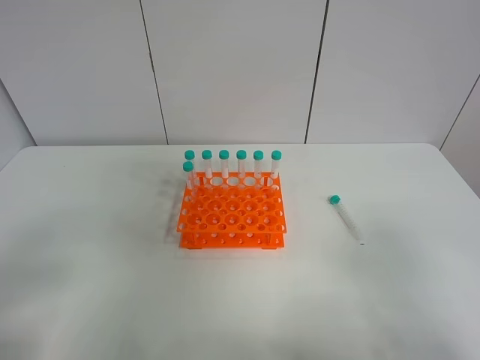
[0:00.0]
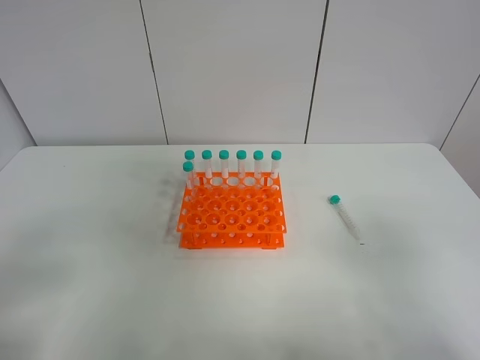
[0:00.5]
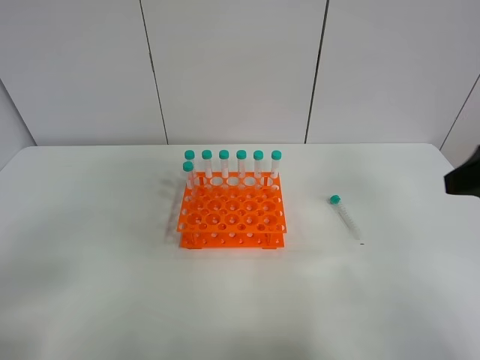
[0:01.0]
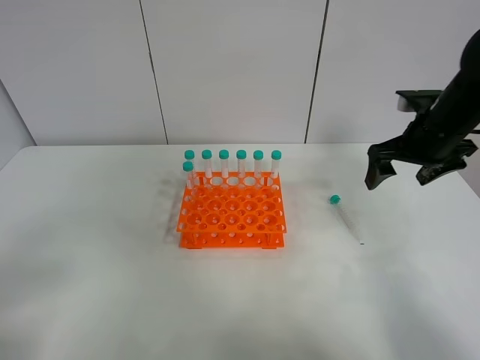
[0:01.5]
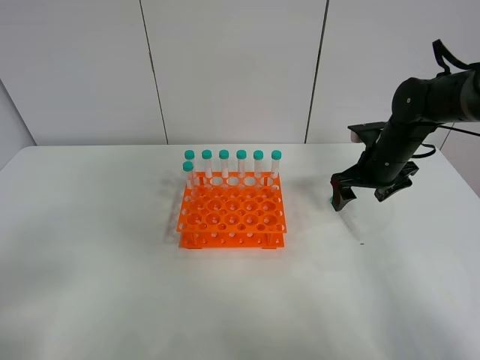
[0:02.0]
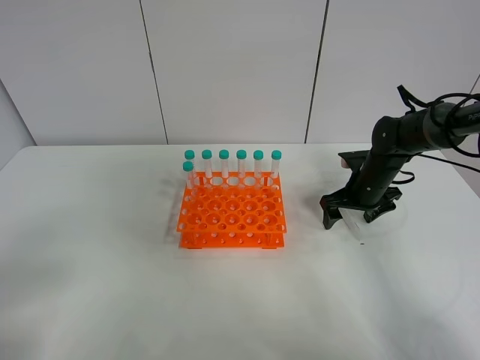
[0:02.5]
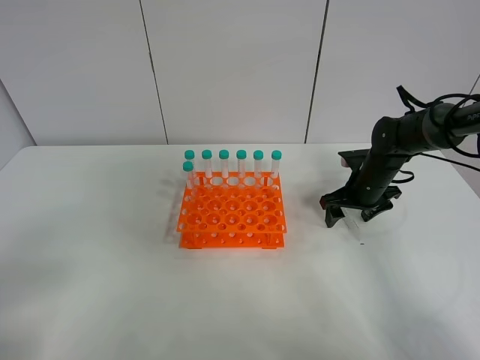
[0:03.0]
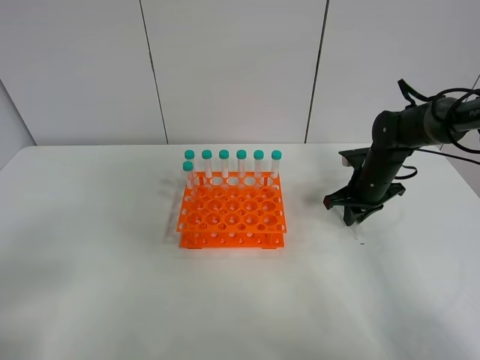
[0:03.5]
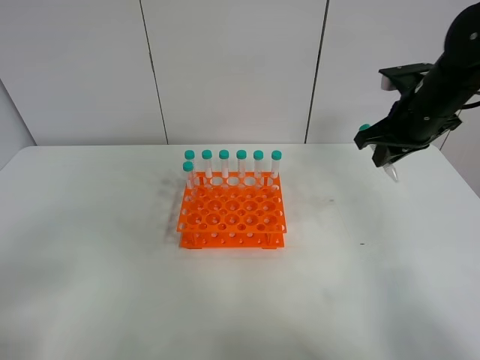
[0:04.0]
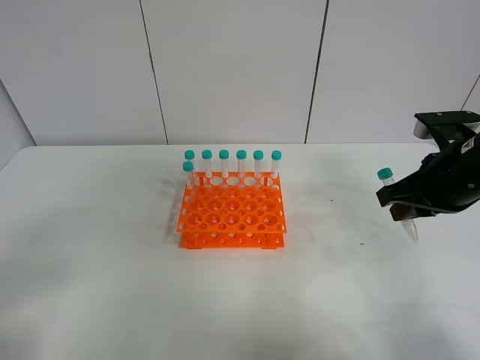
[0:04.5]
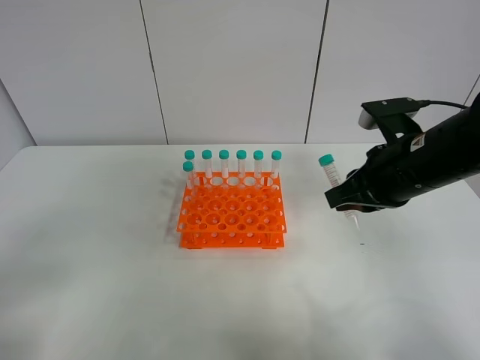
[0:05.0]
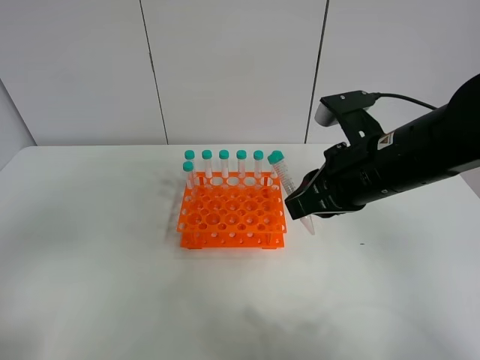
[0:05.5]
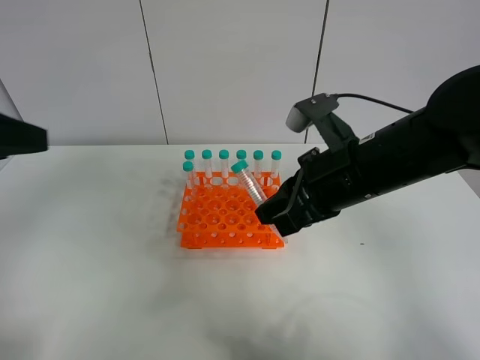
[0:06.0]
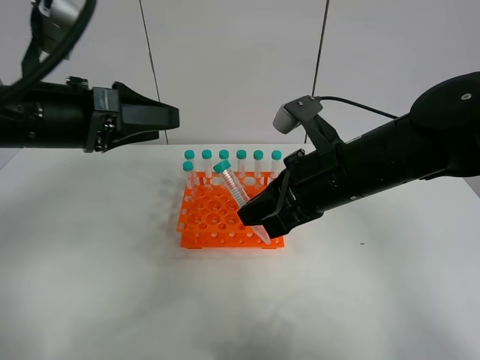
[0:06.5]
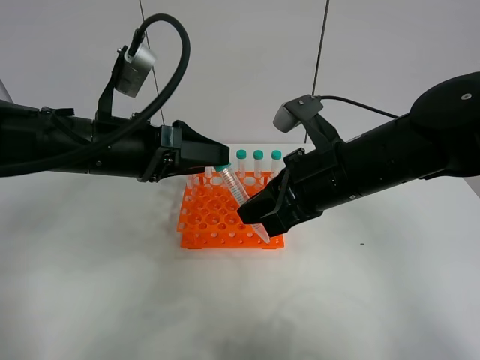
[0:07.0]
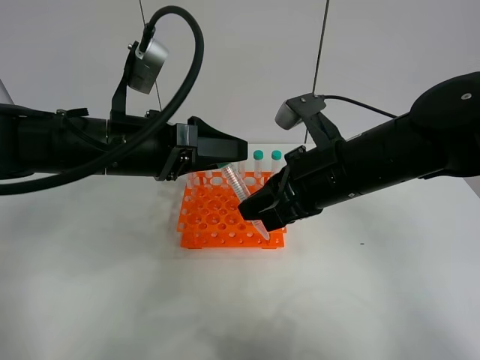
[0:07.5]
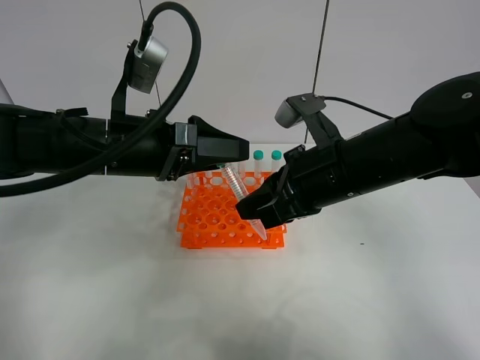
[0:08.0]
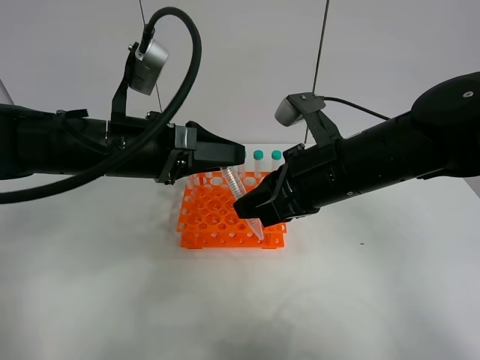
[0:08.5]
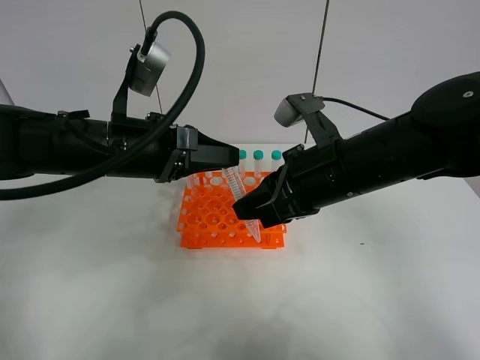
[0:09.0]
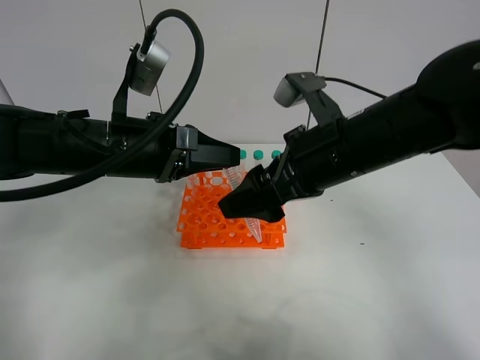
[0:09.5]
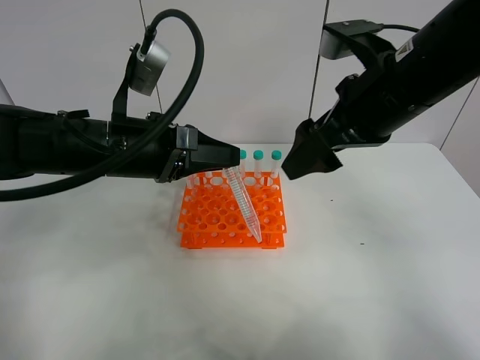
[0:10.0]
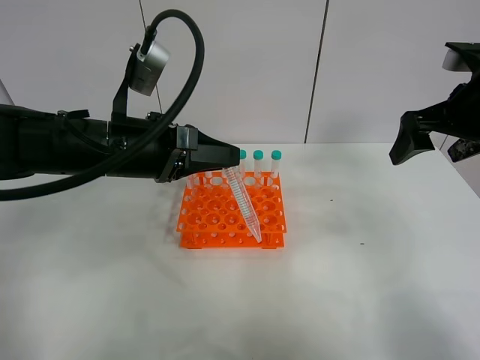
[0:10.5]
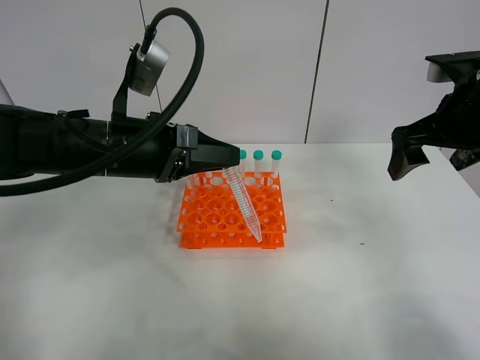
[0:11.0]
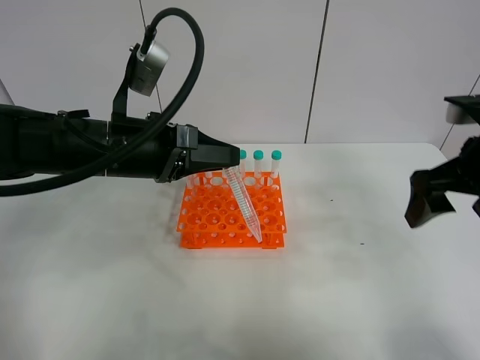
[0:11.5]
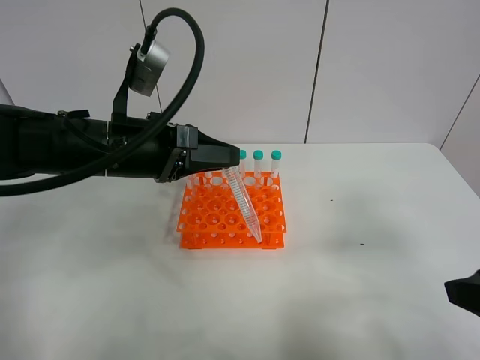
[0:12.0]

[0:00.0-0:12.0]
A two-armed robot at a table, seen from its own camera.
Task of the whole recording: Put the test tube on the table back onto the test tube rack.
Step, 0:00.0 to 0:03.0: Pick up the test tube with the right gripper.
Step, 0:03.5 to 0:09.0: Move the test tube from the right gripper to the left gripper.
0:00.0 to 0:02.0: The right gripper heads forward, covering about 40 cm.
0:02.0 to 0:04.0: The right gripper goes about 10 cm upward, and closes.
0:04.0 to 0:06.0: The left gripper moves forward and upward, about 20 cm. The right gripper moves to the left and backward, about 20 cm.
0:06.0 to 0:08.0: The left gripper heads to the right, downward and forward, covering some 20 cm.
0:08.0 to 0:10.0: The right gripper travels upward by some 10 cm, and opens up, while the left gripper closes up.
0:10.0 to 0:12.0: The right gripper moves backward and to the right, about 20 cm.

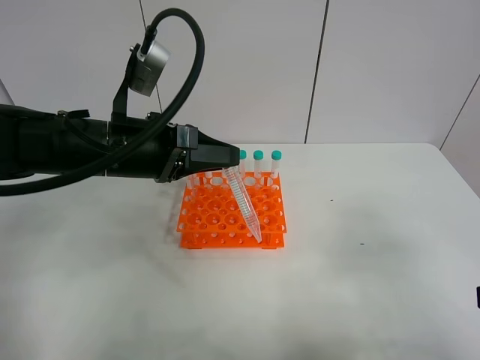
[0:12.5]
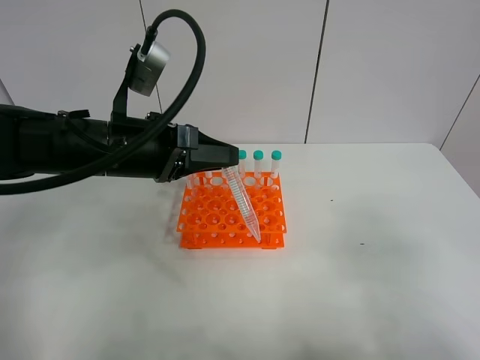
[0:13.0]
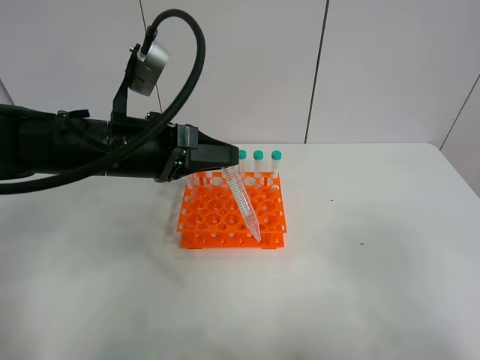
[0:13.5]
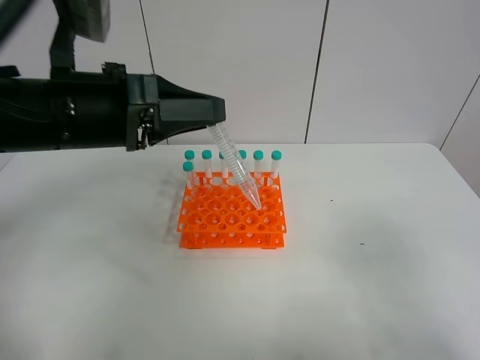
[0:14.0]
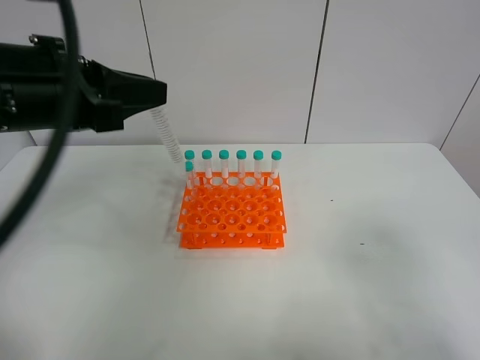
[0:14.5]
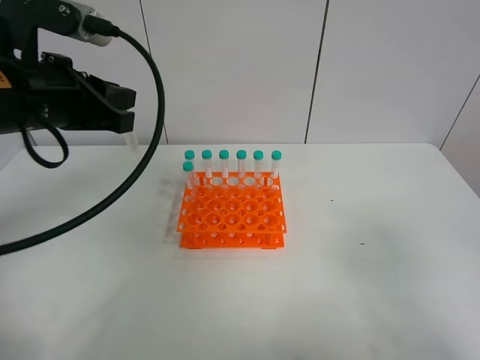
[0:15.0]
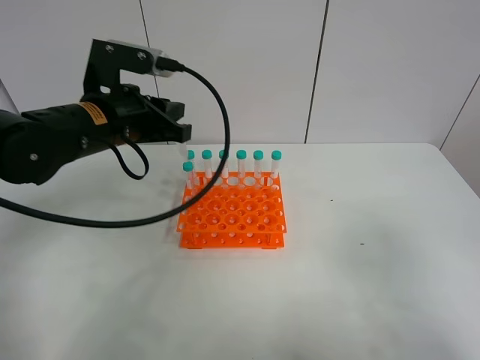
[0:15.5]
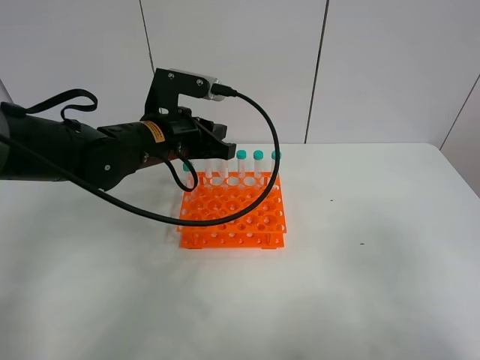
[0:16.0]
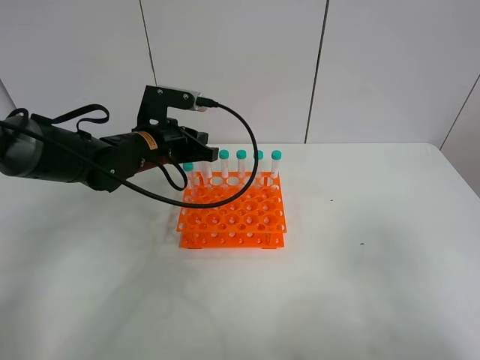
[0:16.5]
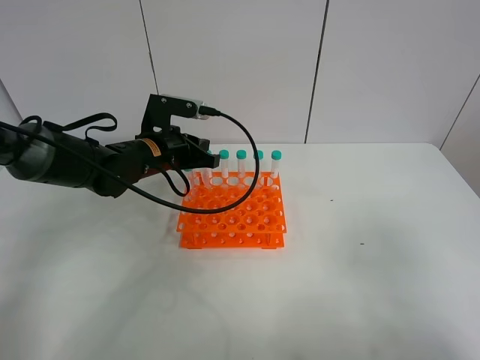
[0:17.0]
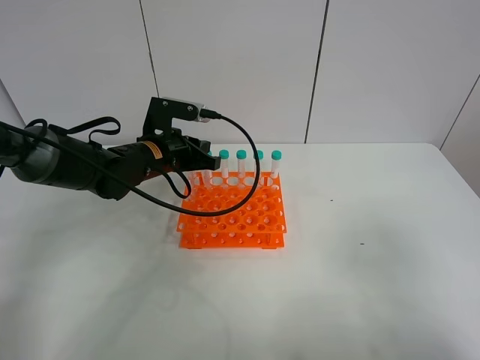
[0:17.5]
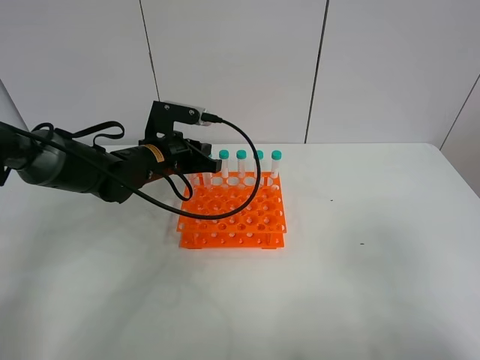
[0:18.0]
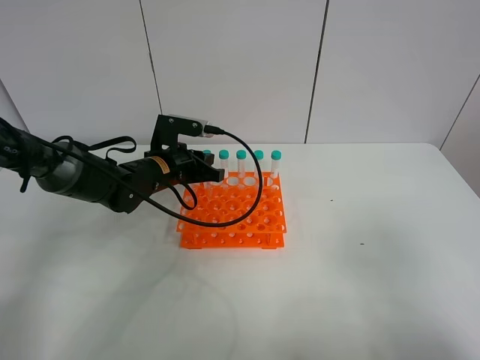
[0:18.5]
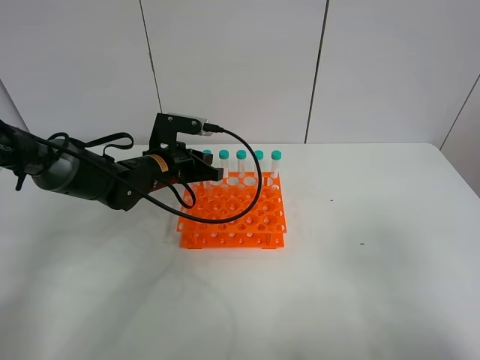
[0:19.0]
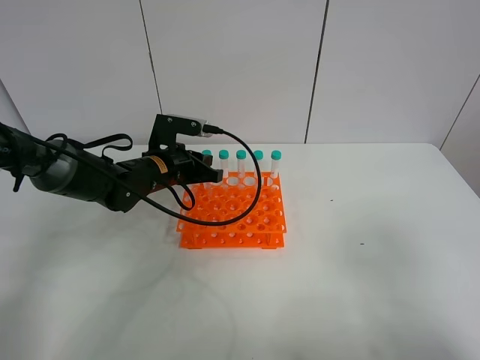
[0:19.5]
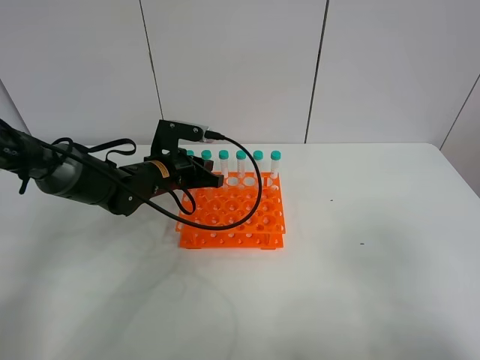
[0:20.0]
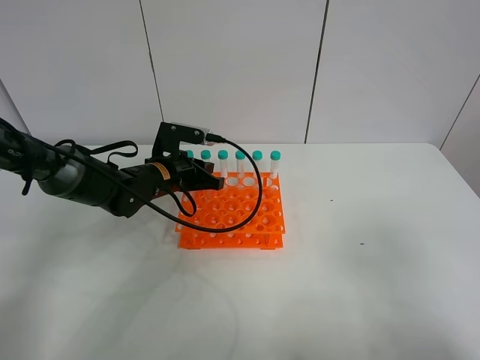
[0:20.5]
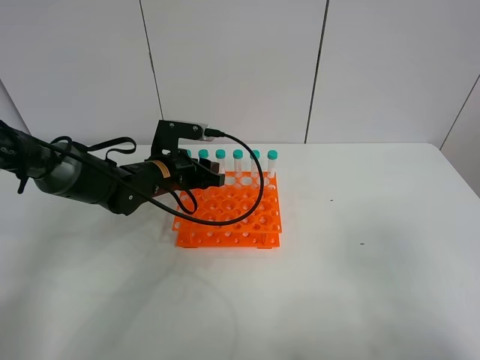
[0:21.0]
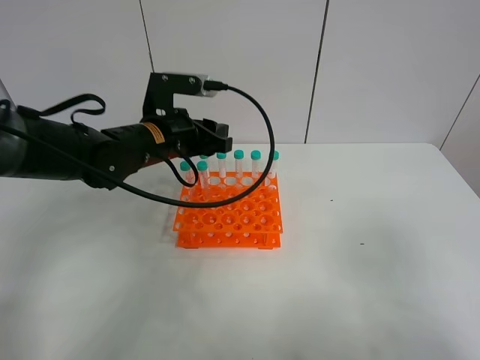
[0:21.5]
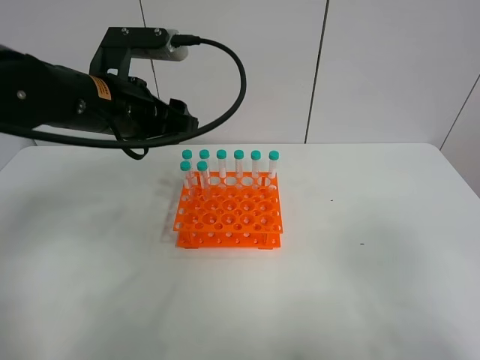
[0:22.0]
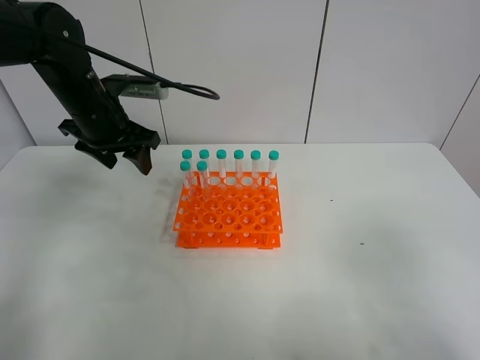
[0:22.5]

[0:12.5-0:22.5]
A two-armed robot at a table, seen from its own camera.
Task of the whole recording: Put the test tube on the table back onto the test tube rack.
Step, 0:12.5 to 0:20.5: Place the test tube on the test tube rack with the left gripper.
0:12.5 to 0:14.5: The left gripper travels upward and to the left by roughly 10 cm.
0:14.5 to 0:16.5: The left gripper travels forward, downward and to the right by some 20 cm.
0:16.5 to 0:18.5: The left gripper moves downward, about 5 cm.
0:18.5 to 0:20.5: The two grippers keep their place.
0:20.5 to 0:22.5: The left gripper is displaced upward and to the left by about 15 cm, and opens up.

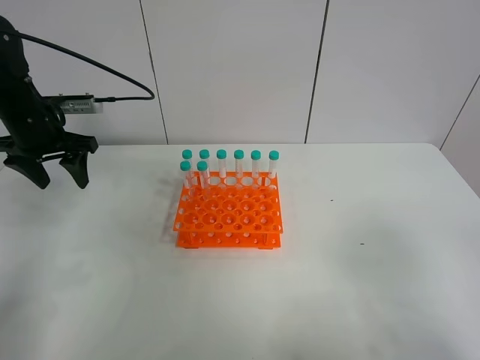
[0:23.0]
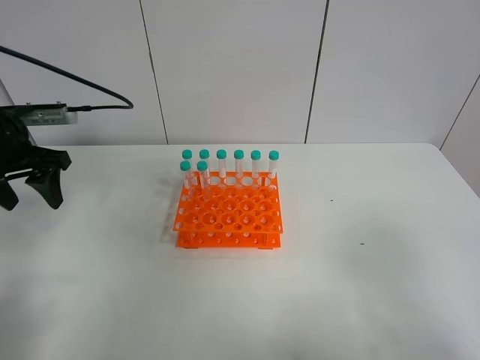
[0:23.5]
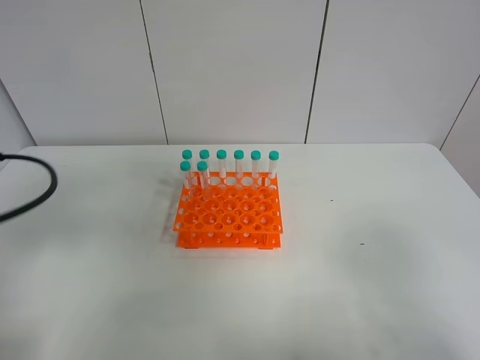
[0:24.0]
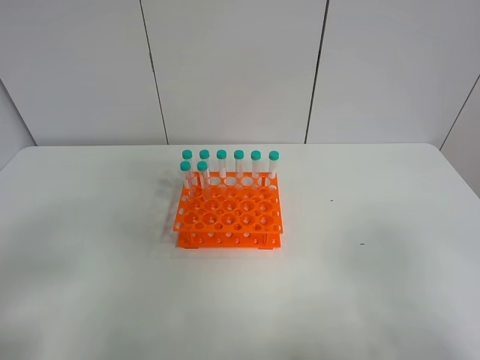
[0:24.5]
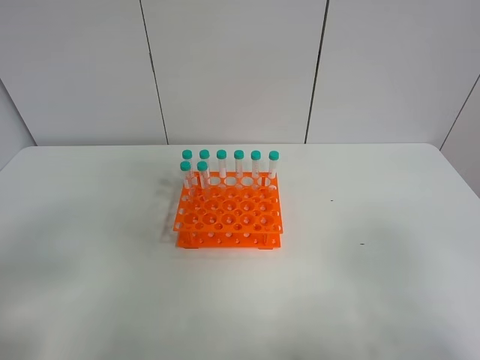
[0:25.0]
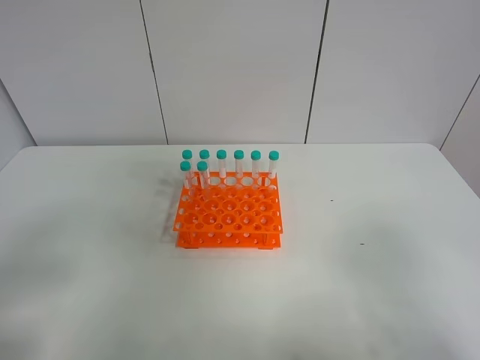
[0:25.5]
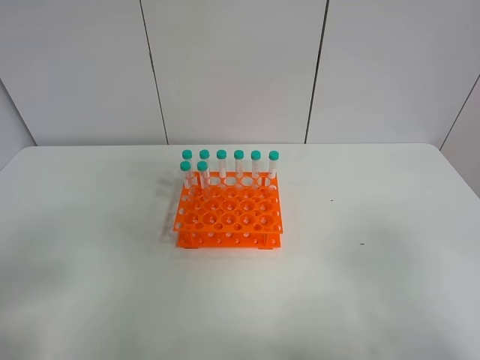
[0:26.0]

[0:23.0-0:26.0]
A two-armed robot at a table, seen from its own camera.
Task of the whole recording: Put the test tube on the table back onto the test tube rack.
0:23.0 to 0:24.5: The left gripper is displaced backward by some 35 cm.
